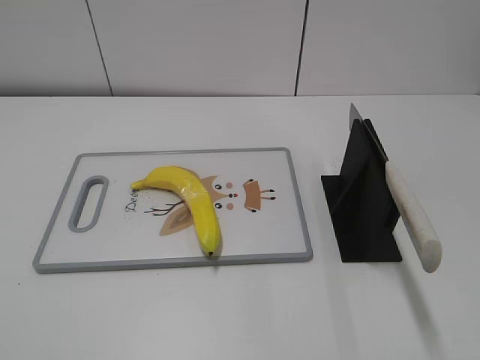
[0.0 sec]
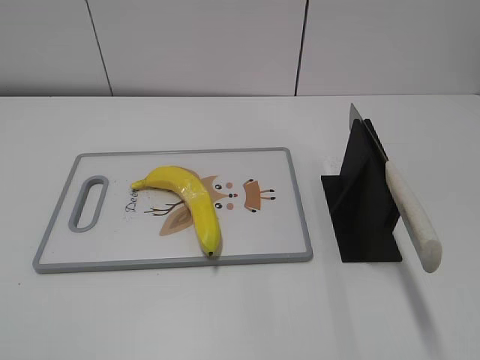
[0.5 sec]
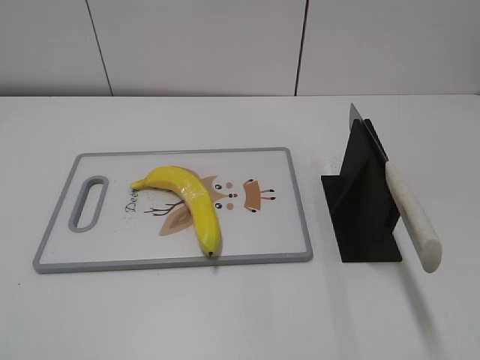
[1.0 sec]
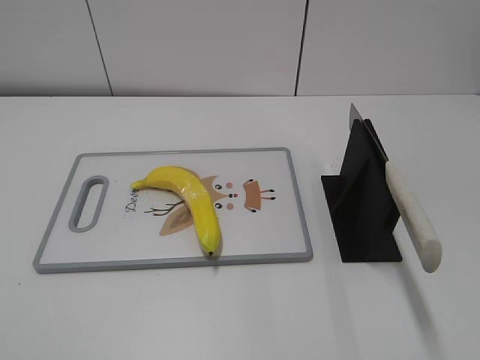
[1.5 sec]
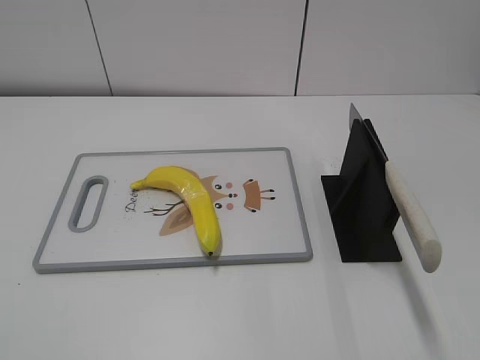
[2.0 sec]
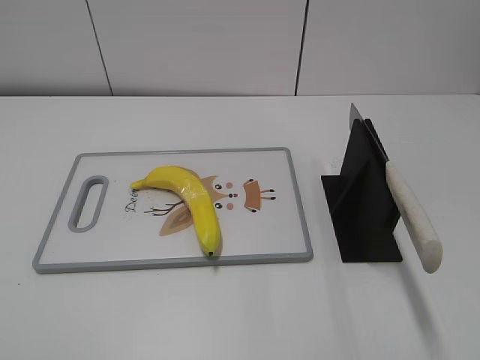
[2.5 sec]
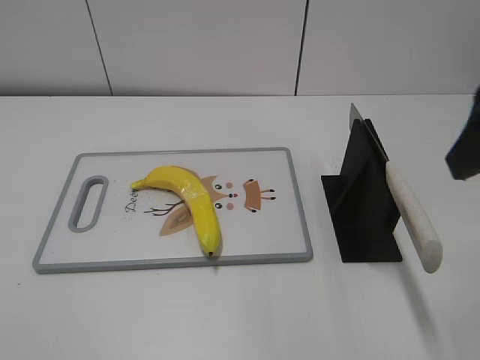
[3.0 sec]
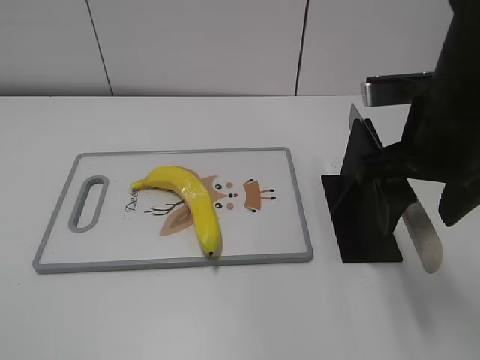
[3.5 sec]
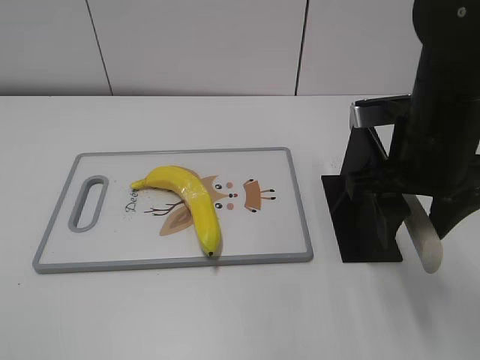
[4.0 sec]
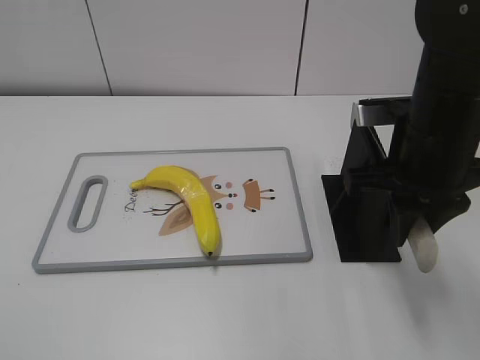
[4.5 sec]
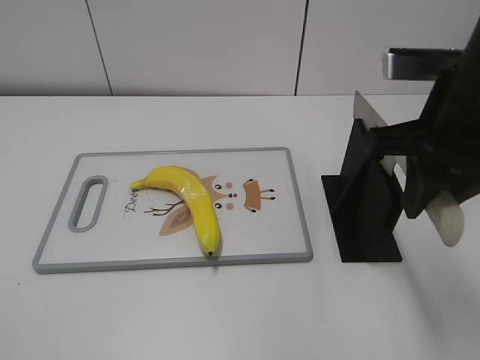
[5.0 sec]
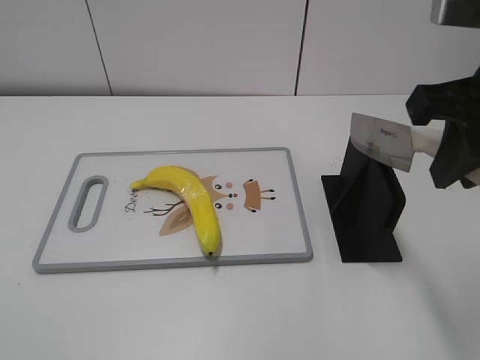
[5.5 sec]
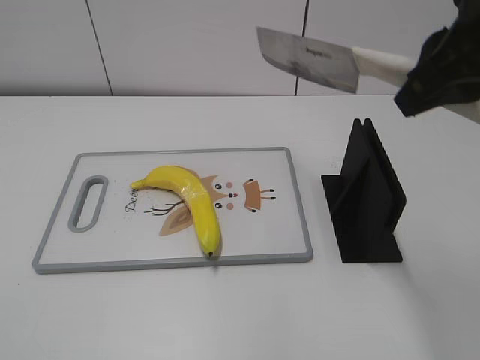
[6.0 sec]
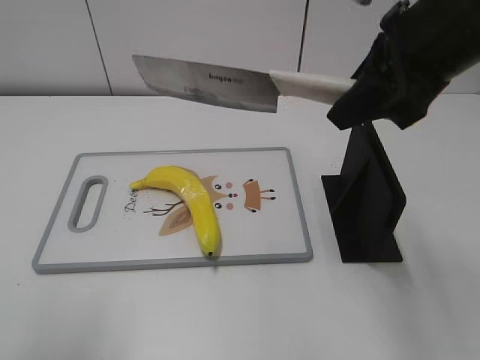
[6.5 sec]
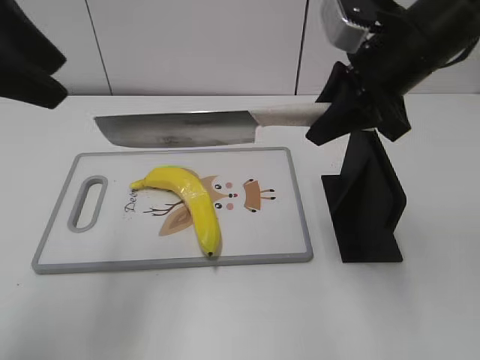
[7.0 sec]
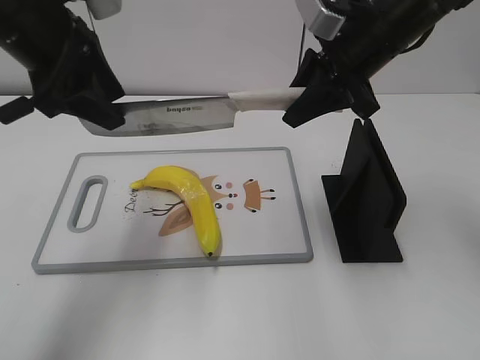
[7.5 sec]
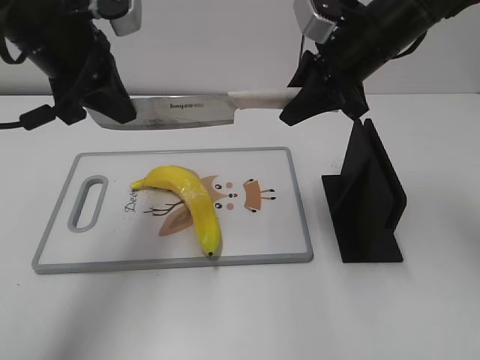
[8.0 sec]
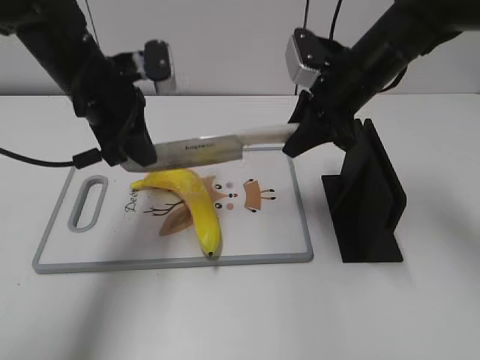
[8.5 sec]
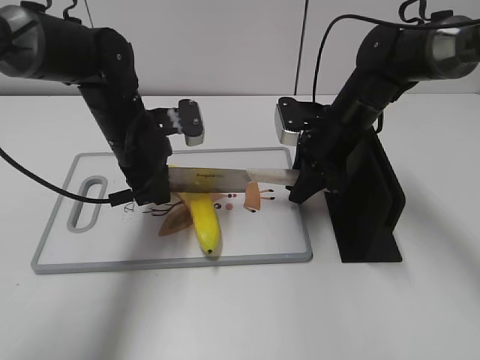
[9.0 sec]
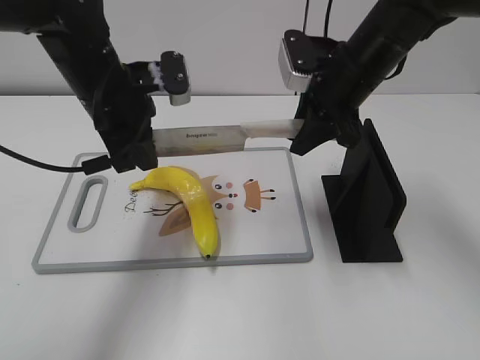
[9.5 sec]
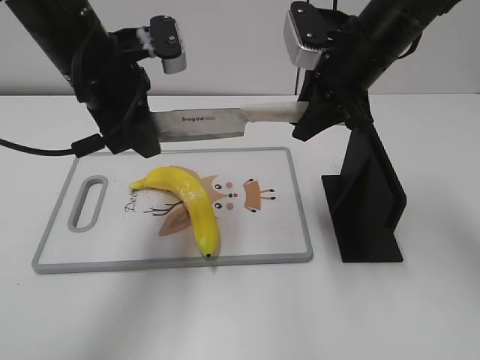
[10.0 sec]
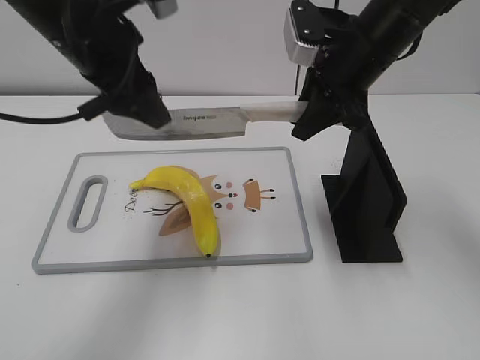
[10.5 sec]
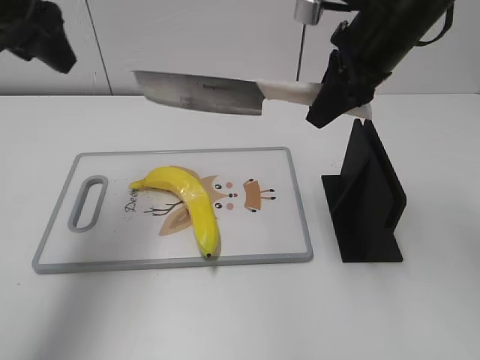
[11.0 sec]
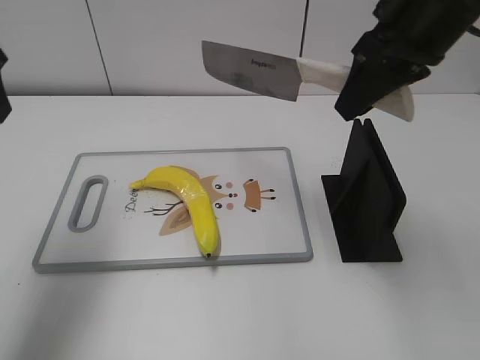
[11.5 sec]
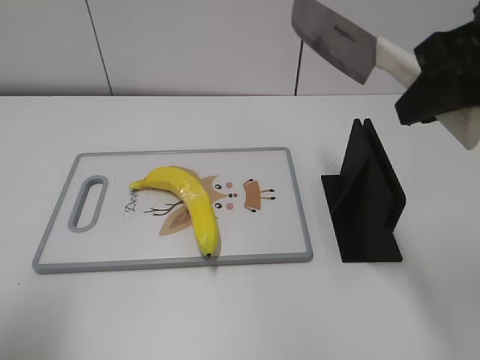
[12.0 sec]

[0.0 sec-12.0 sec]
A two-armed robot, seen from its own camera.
Task of the whole recording: cut plastic banana.
Step, 0.0 sec to 5.5 sec: Grab the knife handle with your right hand.
Step, 6.0 sec to 9.5 sec: Lift the knife with your right hand.
Step, 10.0 sec to 11.0 sec: Cut the banana with your right hand.
2.0 sec to 4.0 sec: The right gripper is displaced forward and to the left by approximately 30 cm.
4.0 sec to 6.0 sec: The right gripper heads upward, covering some 15 cm, and closes up.
6.0 sec to 8.0 sec: The left gripper shifts approximately 35 cm forward and to the right, and closes up. The right gripper travels forward and downward by about 20 cm.
8.0 sec to 10.0 sec: The right gripper goes downward and returns, about 15 cm each way. The left gripper reaches about 15 cm downward, then returns.
10.0 sec to 12.0 sec: The right gripper heads backward, upward and to the right, covering about 20 cm. The left gripper travels backward and to the left by about 20 cm, and opens.

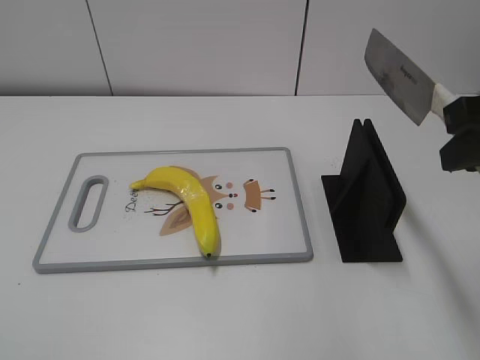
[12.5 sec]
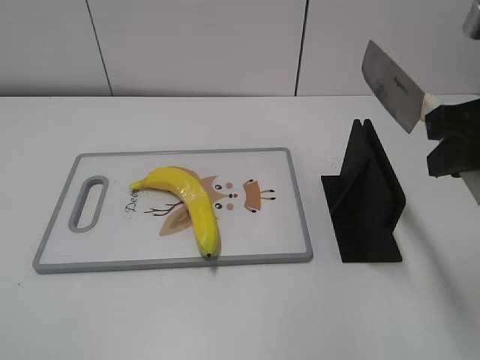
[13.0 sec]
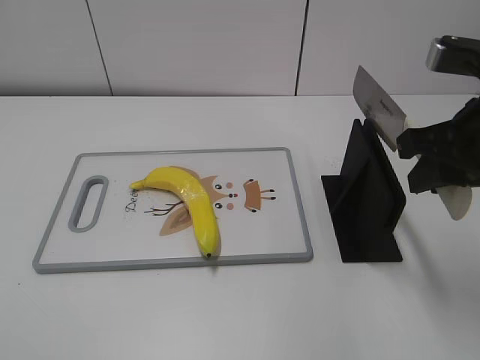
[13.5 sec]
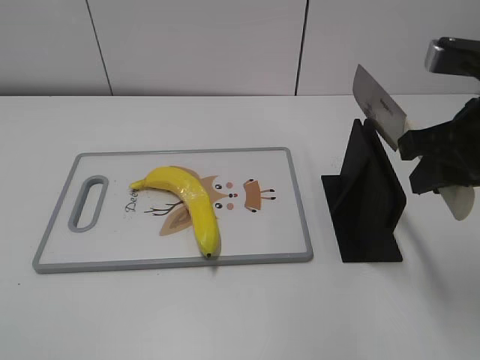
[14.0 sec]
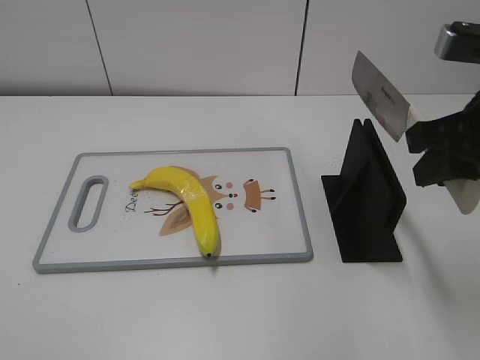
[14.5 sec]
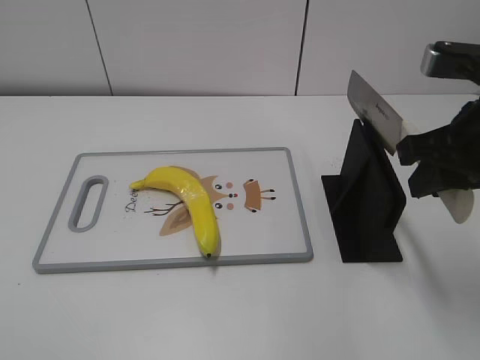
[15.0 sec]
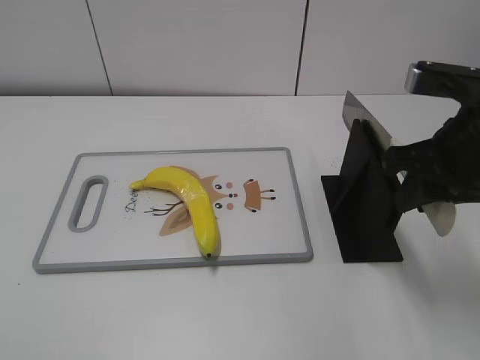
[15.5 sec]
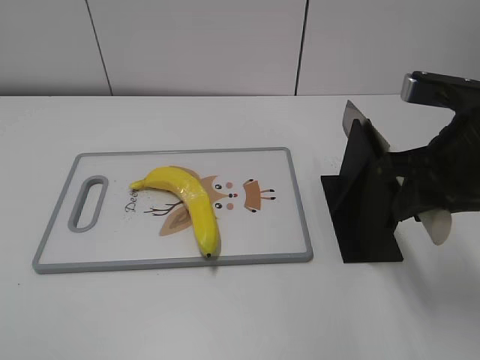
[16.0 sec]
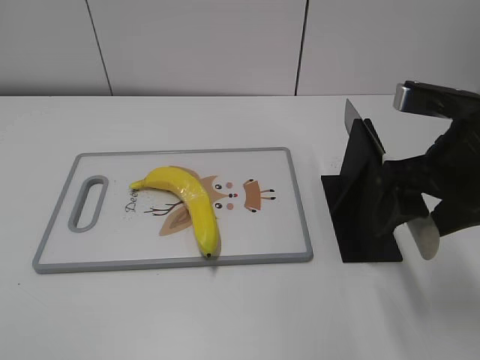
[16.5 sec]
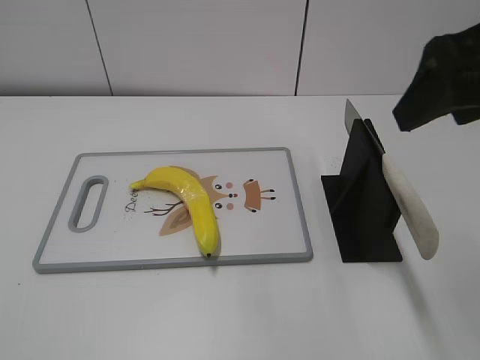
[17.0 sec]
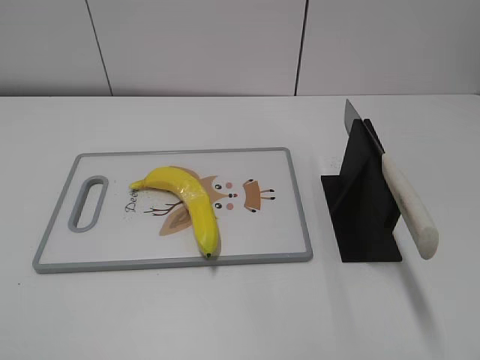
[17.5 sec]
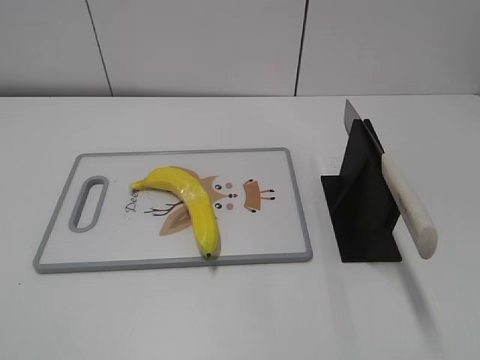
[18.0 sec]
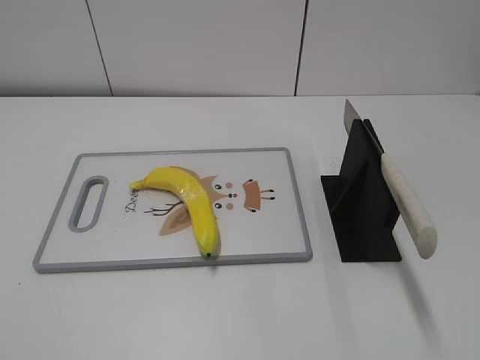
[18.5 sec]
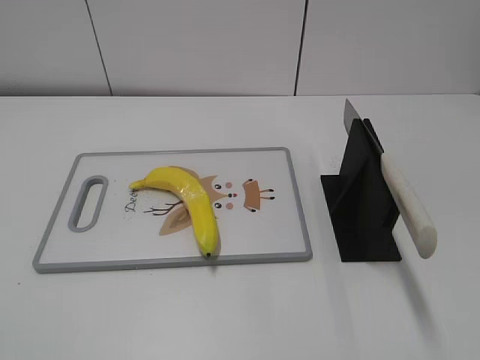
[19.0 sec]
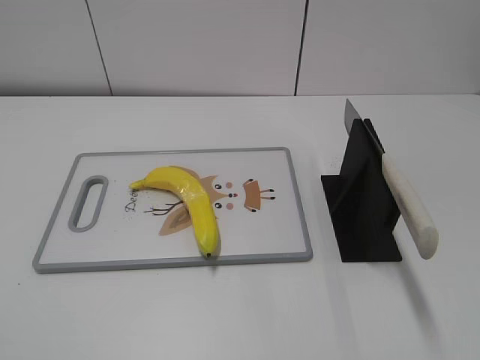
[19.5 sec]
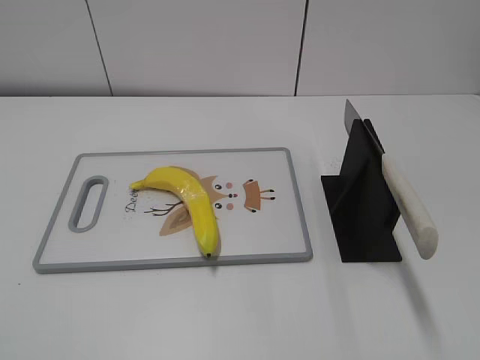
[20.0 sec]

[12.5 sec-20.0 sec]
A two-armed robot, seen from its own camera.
Task of the whole recording: cut plastic banana.
Step, 13.0 sec to 20.0 sec: Place the knife on the storage rack with your right hand.
14.5 sec to 16.5 sec: The right gripper opens its fingers.
16.5 sec to 18.0 sec: The right gripper shifts some 20 cm backward.

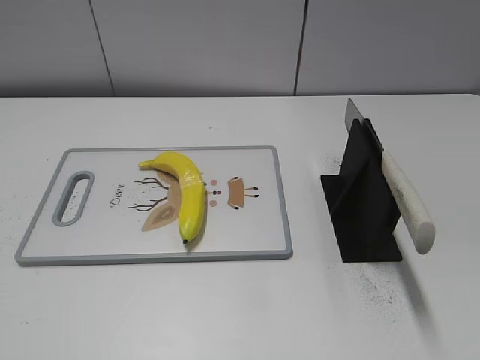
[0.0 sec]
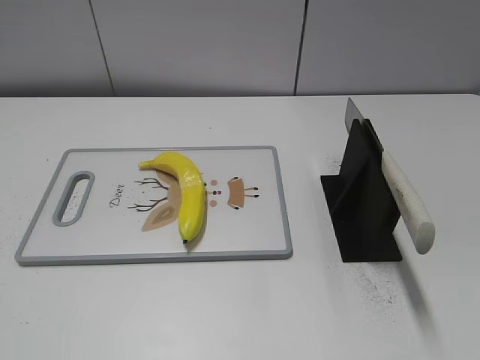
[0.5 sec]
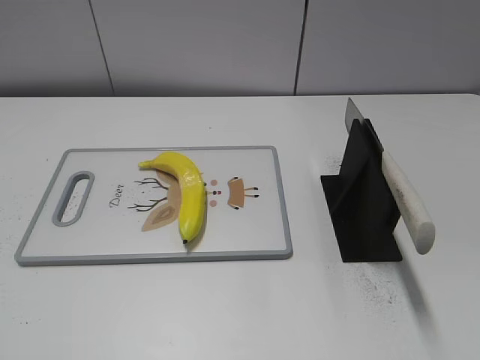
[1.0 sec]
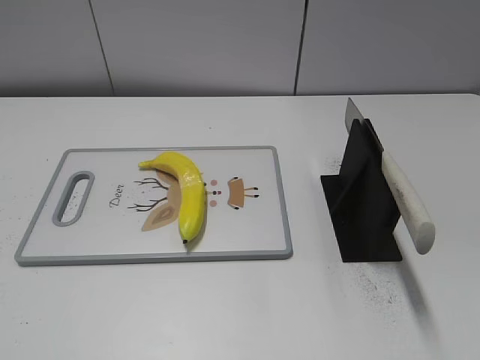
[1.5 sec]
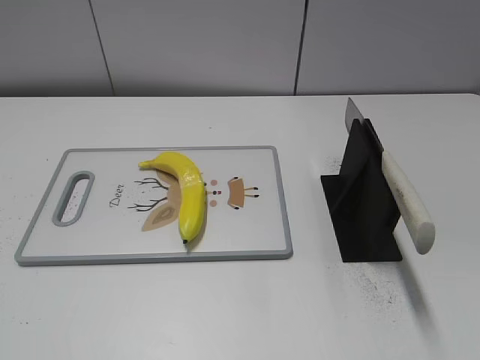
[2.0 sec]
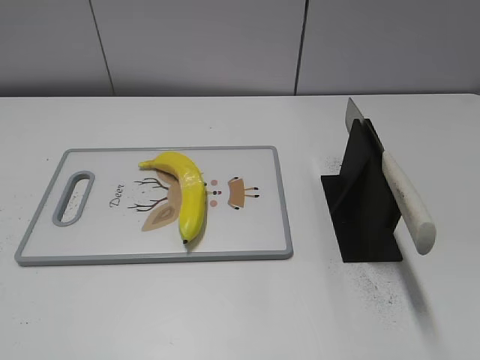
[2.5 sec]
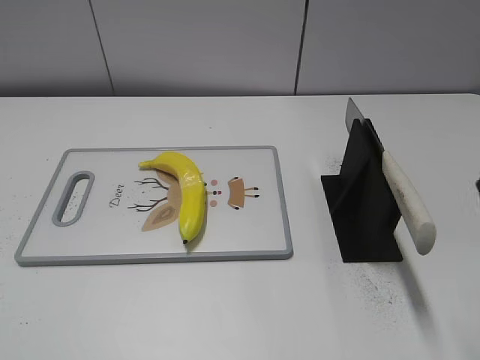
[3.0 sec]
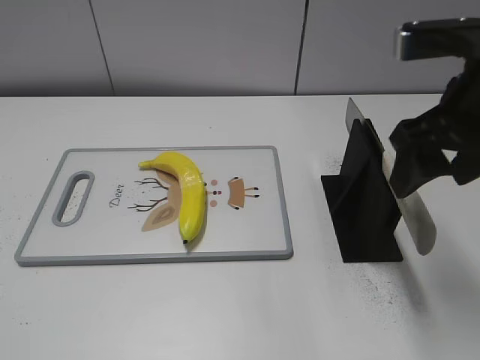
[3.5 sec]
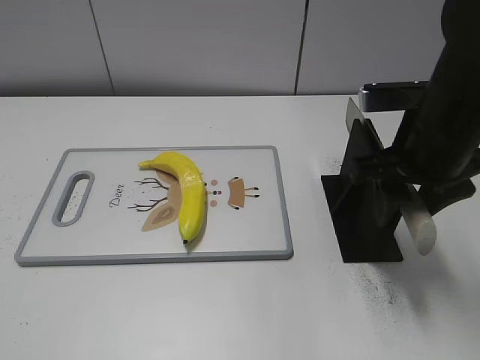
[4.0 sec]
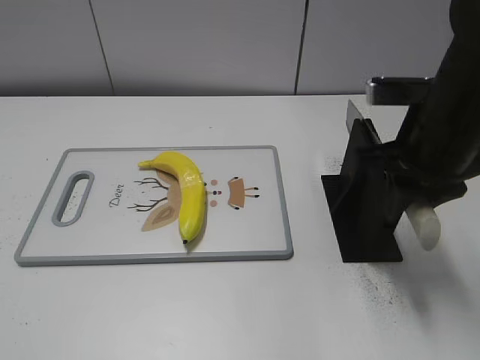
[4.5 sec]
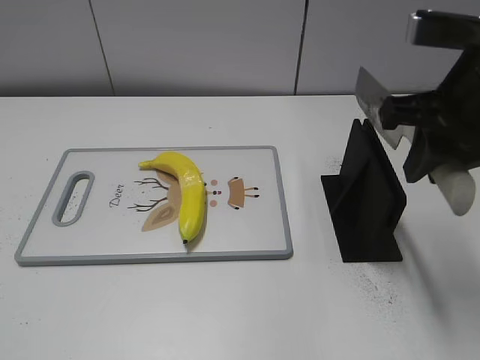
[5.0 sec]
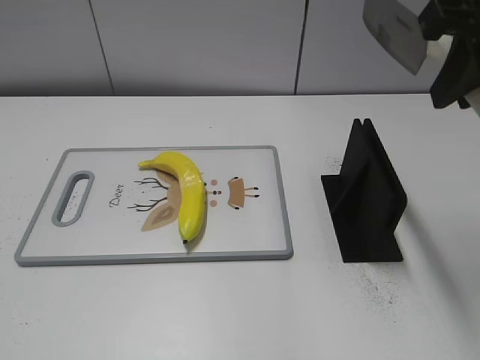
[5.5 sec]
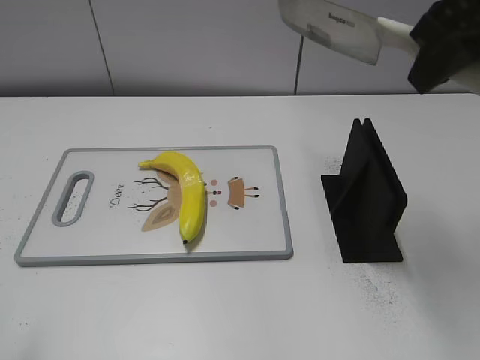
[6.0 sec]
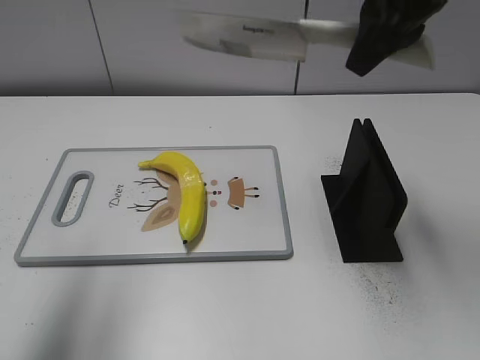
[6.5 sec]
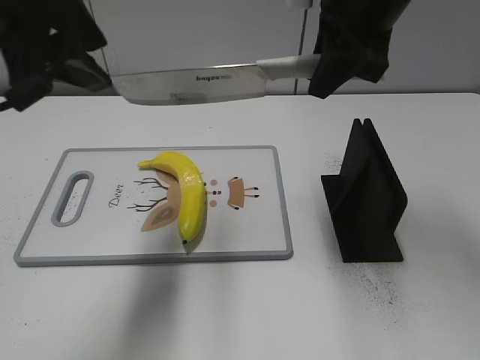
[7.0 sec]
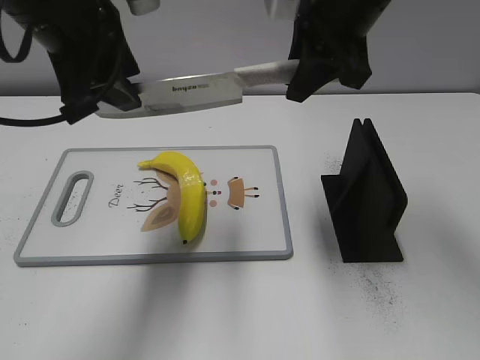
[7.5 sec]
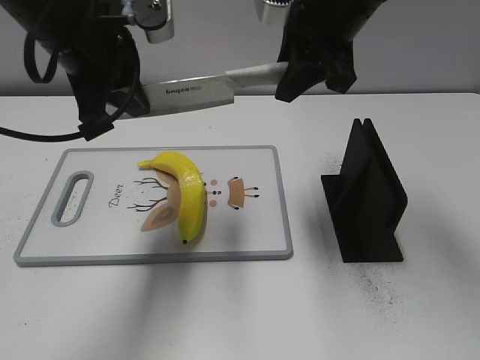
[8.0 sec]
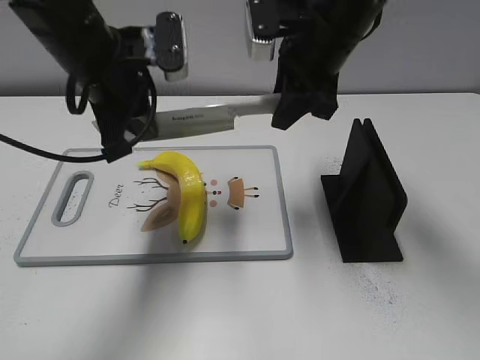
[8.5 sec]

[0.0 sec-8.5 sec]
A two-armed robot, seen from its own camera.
Task of the whole recording: cut plastic banana.
Step, 0.0 sec to 5.0 sec: Grab the knife handle with your right hand.
2.0 sec to 4.0 sec: The right gripper shifts about 30 cm forward and to the left, and closes up.
4.0 sec to 6.5 sec: The left gripper heads forward and upward, covering approximately 25 cm; the right gripper travels upward and forward by some 15 cm, and closes.
6.5 sec to 8.5 sec: The left gripper moves forward, downward and to the right, approximately 20 cm, and closes; the right gripper travels downward, forward and to the left by approximately 10 cm.
